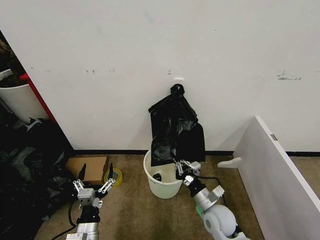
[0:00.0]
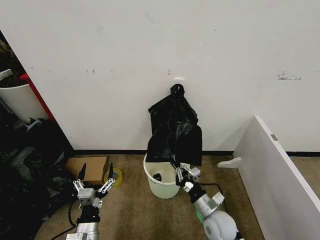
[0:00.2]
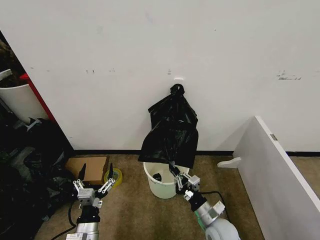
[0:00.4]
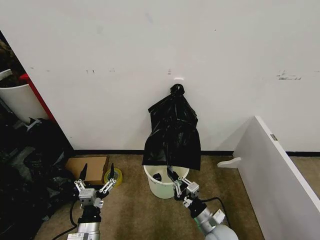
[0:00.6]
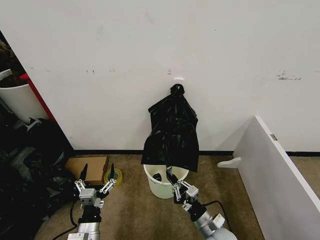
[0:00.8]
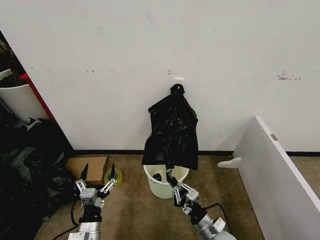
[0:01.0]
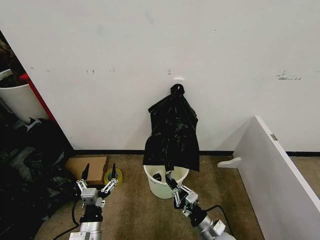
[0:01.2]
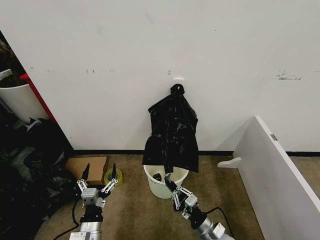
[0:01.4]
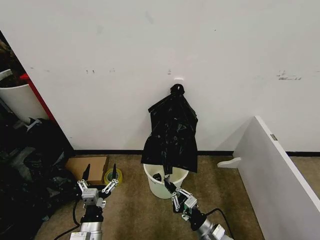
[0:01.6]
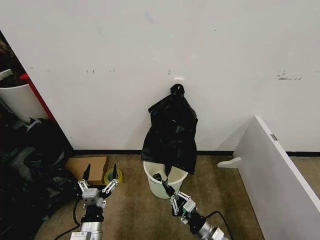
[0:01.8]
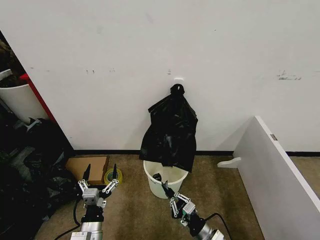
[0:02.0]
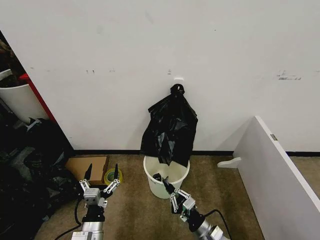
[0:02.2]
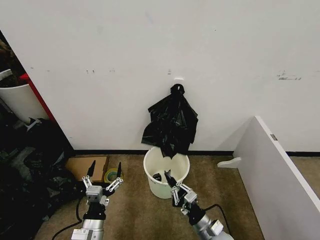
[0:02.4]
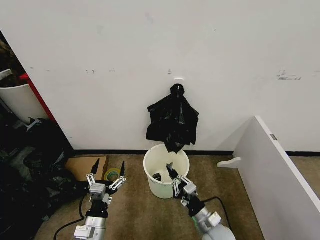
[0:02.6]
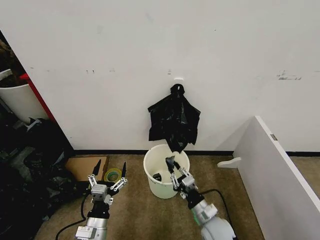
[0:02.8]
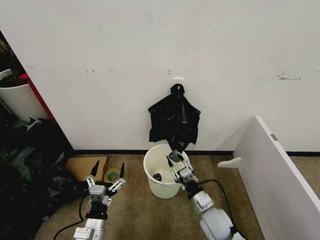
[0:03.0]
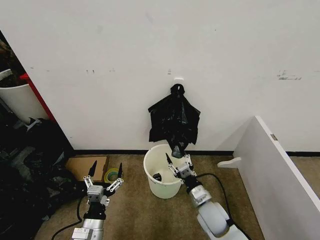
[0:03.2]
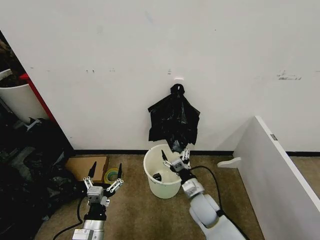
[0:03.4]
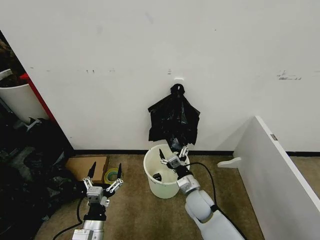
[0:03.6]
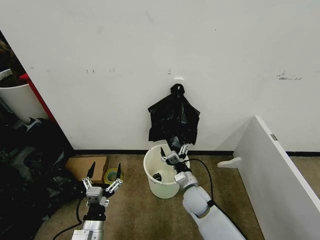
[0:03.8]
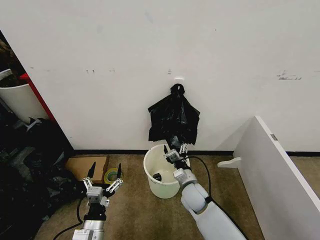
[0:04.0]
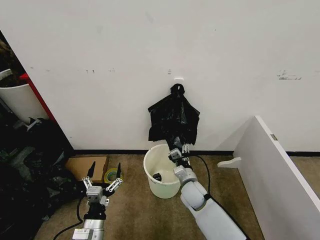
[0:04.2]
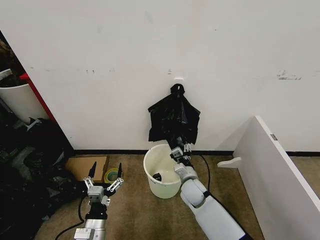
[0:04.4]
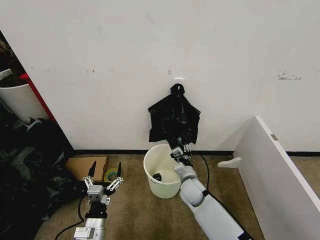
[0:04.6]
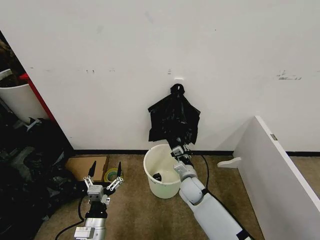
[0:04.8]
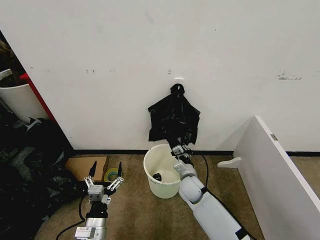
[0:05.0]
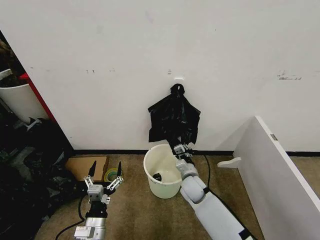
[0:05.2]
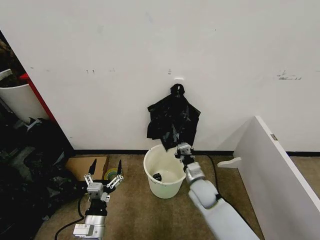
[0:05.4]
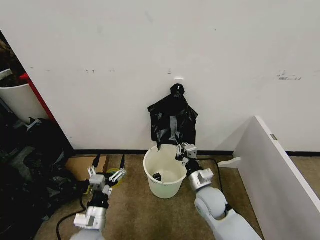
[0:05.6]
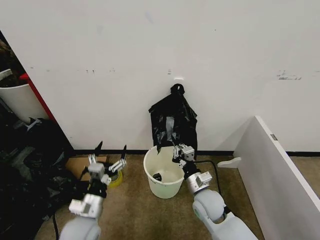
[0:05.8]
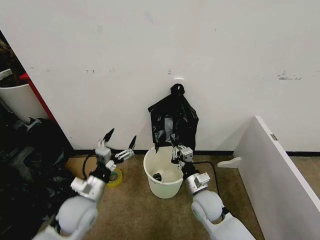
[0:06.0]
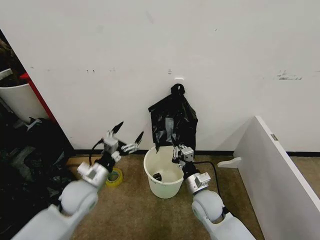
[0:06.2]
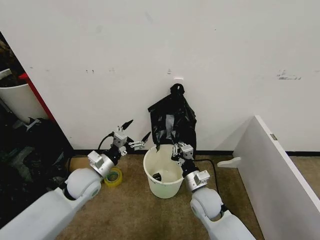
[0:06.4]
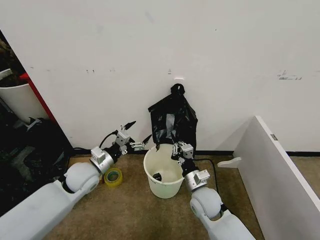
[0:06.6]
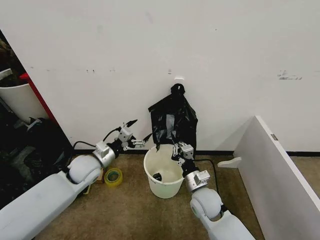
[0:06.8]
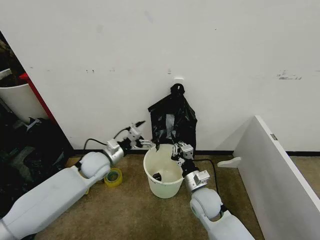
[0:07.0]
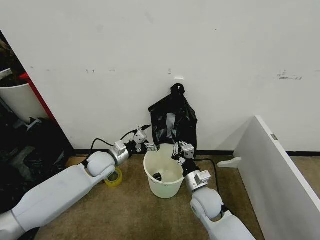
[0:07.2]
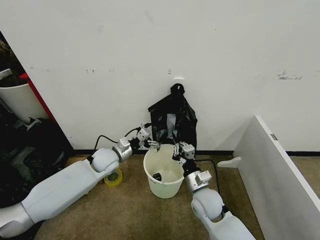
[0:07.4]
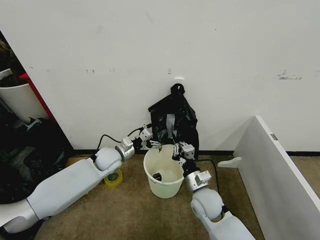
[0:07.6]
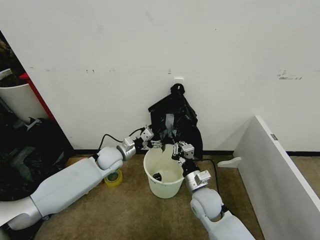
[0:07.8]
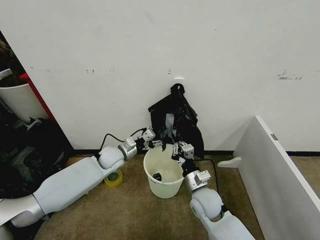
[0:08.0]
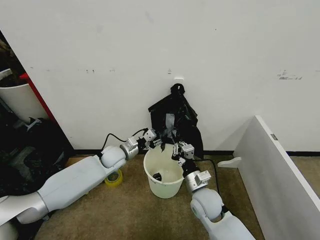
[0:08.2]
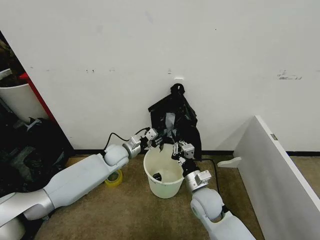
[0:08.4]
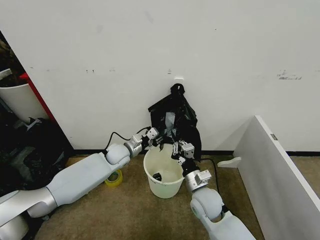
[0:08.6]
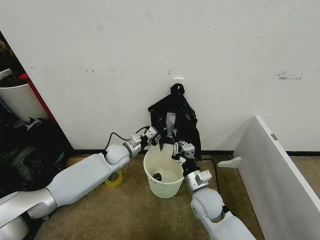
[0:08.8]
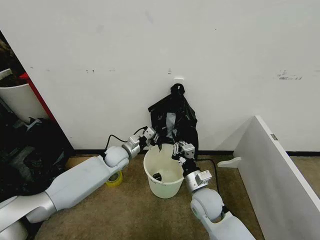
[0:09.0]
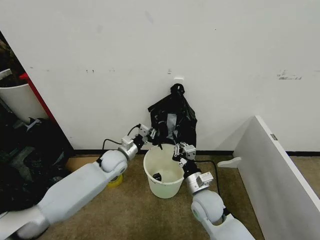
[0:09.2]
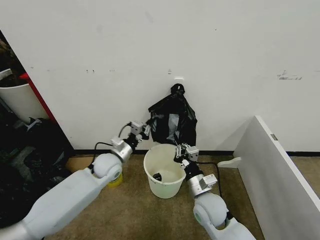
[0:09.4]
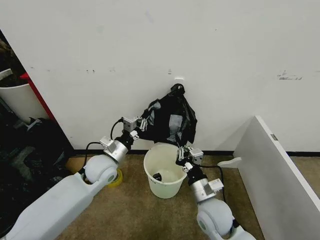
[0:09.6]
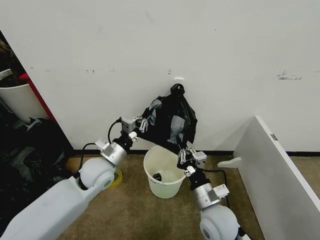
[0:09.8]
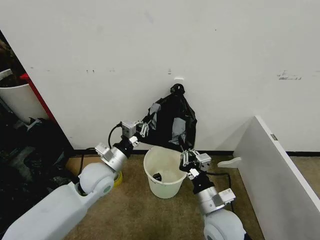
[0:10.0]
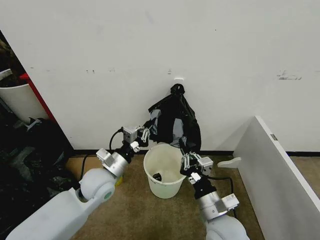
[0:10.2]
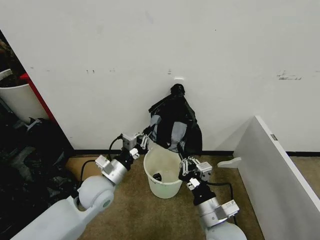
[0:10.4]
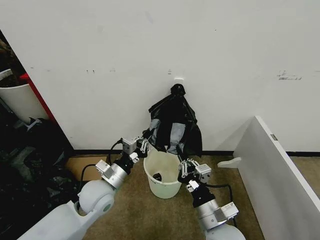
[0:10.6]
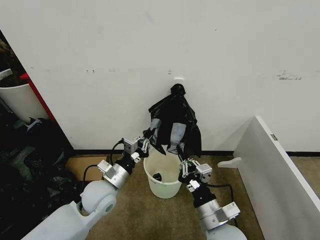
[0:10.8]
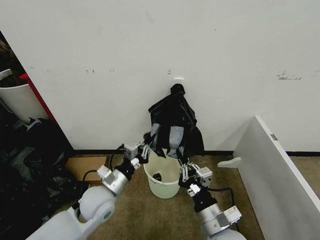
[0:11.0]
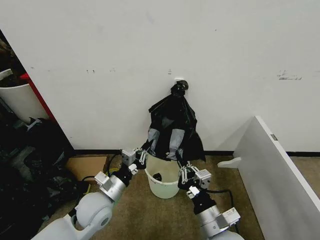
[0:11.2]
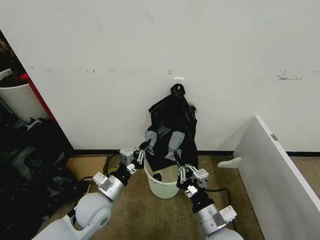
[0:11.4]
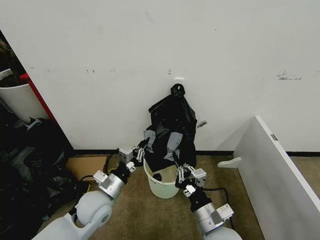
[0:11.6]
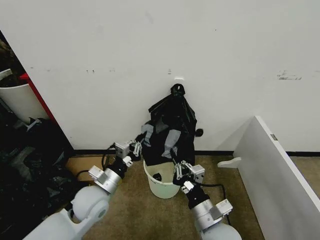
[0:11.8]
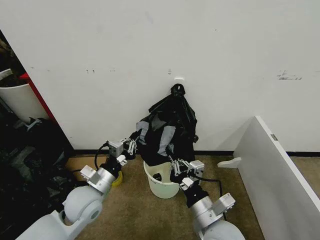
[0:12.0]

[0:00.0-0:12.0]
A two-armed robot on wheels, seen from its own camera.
Task of the whole recording: Place the garbage bag over the trash bin.
0:00.0 to 0:01.6: The right gripper travels backward and downward by some 10 cm.
0:01.6 to 0:03.0: The right gripper heads forward, covering approximately 5 cm, and opens its fingers.
0:03.0 to 0:04.4: The right gripper moves forward and to the left, roughly 10 cm, and opens, then closes again.
0:04.4 to 0:06.0: The right gripper goes some 5 cm backward, and closes its fingers. The left gripper shifts roughly 15 cm forward and upward.
0:06.0 to 0:07.6: The left gripper travels forward by roughly 20 cm.
0:07.6 to 0:09.0: The left gripper closes up.
0:09.0 to 0:10.4: Both grippers move backward and upward, approximately 15 cm.
0:10.4 to 0:12.0: The grippers make only small movements.

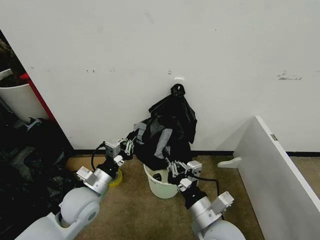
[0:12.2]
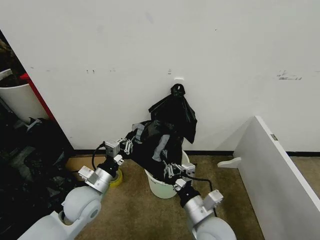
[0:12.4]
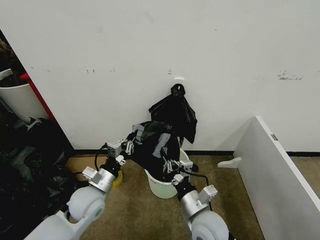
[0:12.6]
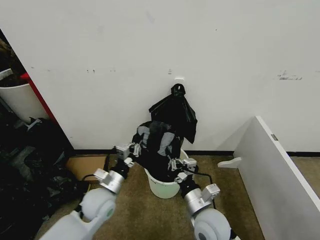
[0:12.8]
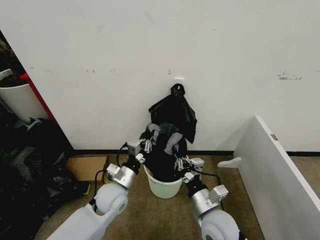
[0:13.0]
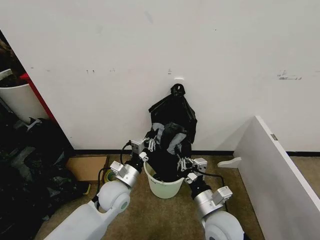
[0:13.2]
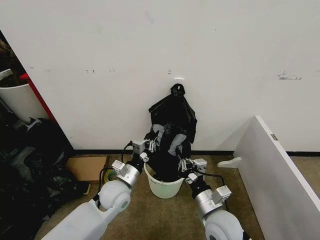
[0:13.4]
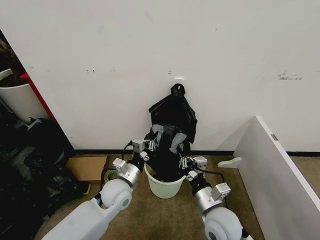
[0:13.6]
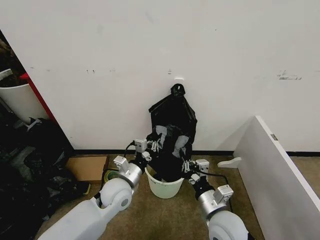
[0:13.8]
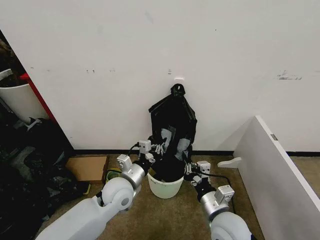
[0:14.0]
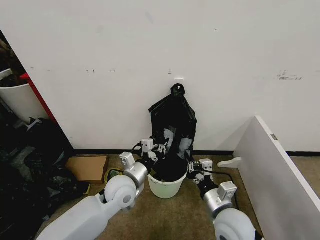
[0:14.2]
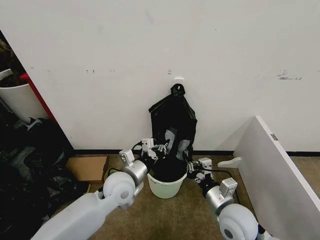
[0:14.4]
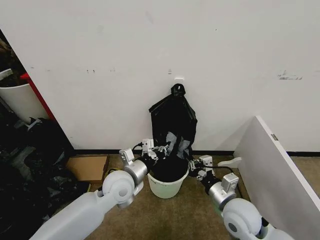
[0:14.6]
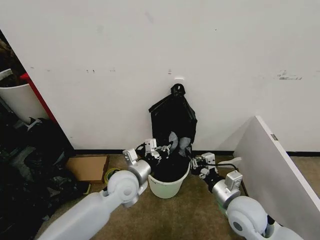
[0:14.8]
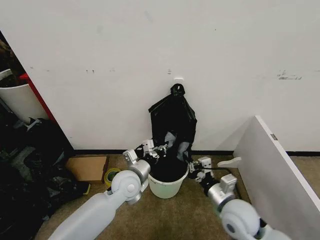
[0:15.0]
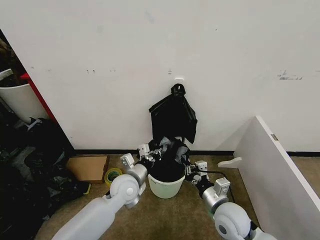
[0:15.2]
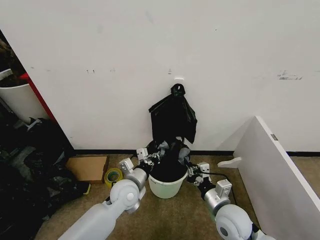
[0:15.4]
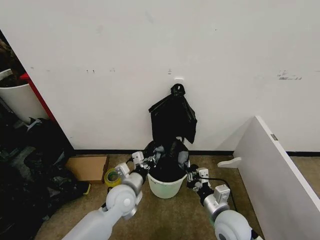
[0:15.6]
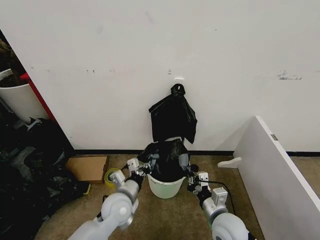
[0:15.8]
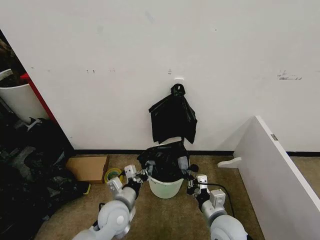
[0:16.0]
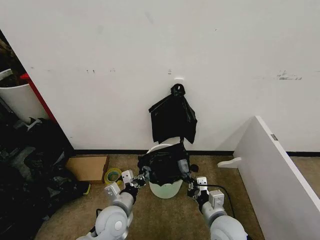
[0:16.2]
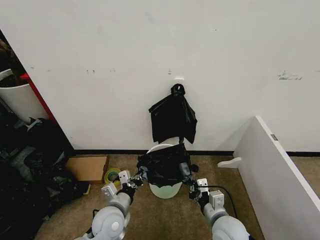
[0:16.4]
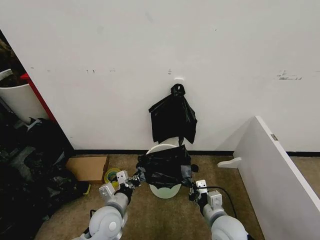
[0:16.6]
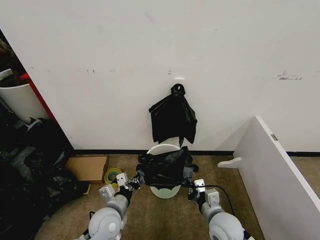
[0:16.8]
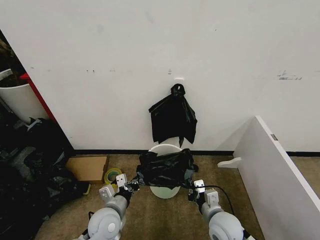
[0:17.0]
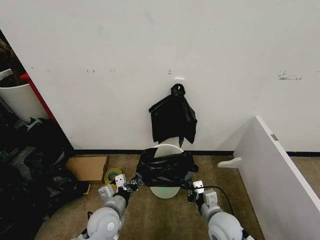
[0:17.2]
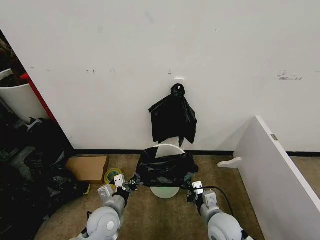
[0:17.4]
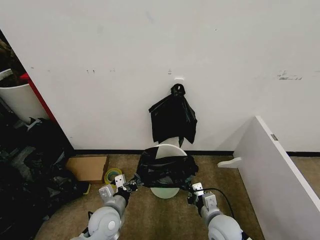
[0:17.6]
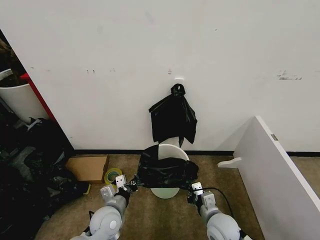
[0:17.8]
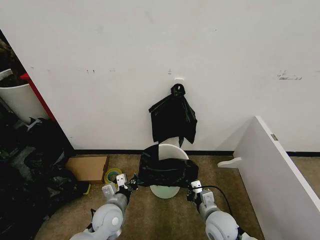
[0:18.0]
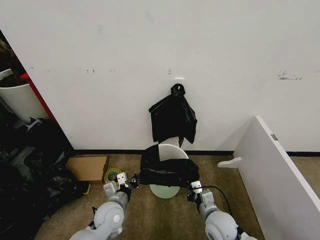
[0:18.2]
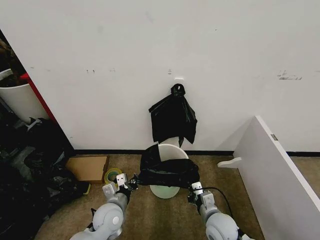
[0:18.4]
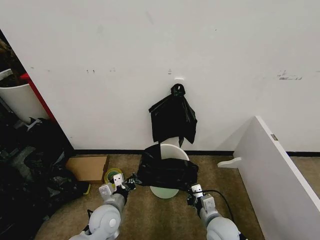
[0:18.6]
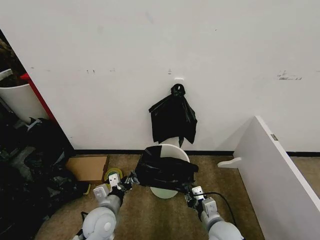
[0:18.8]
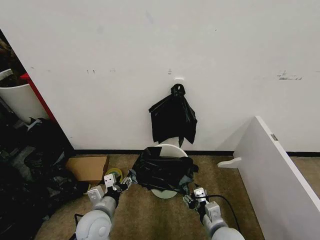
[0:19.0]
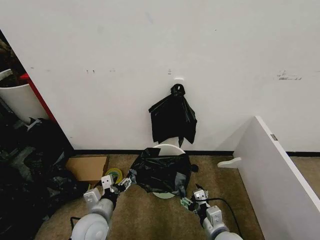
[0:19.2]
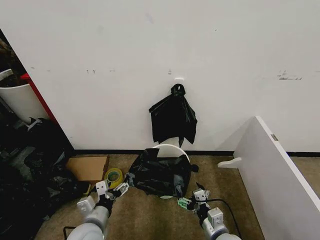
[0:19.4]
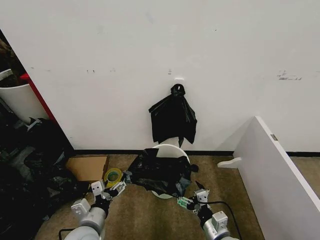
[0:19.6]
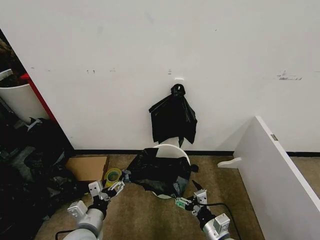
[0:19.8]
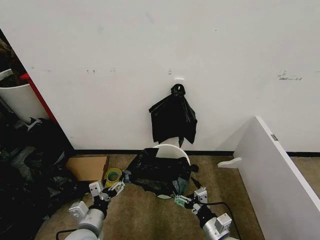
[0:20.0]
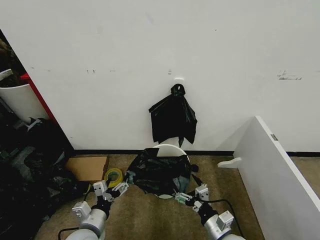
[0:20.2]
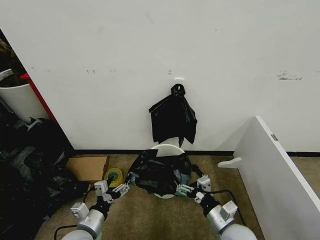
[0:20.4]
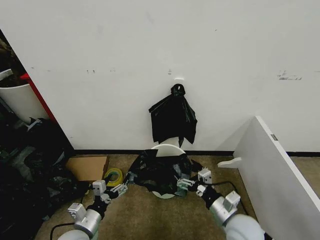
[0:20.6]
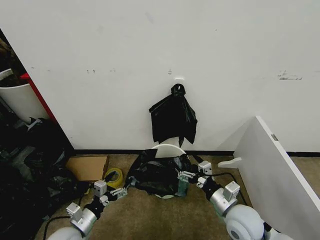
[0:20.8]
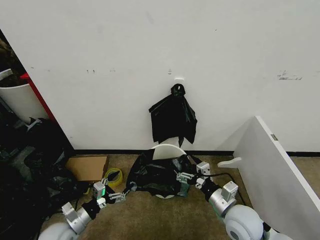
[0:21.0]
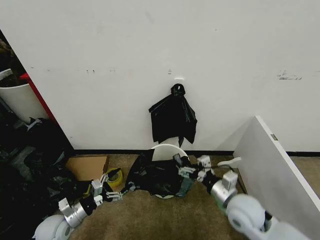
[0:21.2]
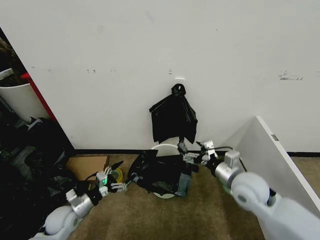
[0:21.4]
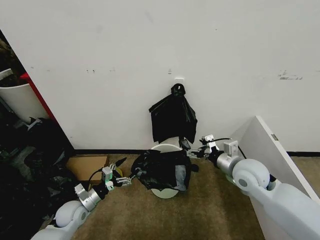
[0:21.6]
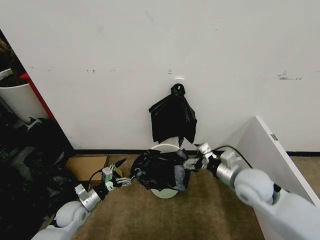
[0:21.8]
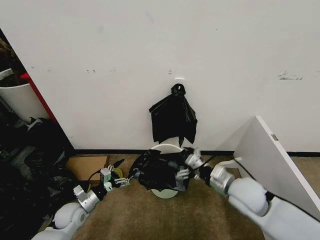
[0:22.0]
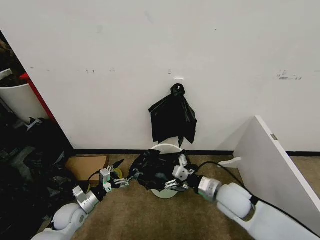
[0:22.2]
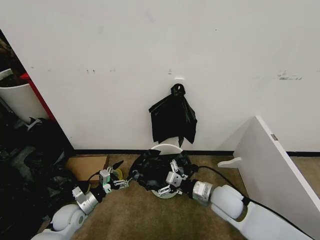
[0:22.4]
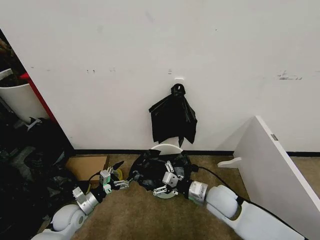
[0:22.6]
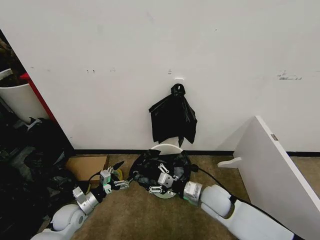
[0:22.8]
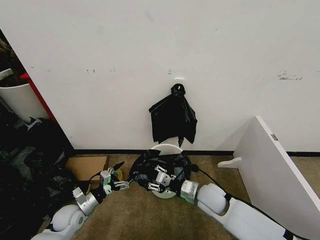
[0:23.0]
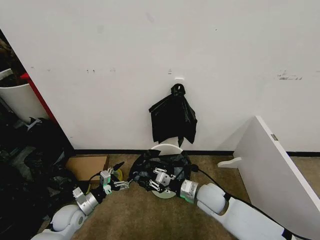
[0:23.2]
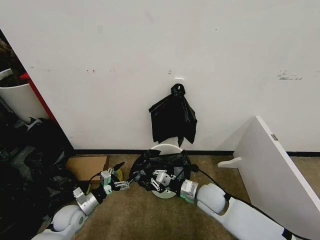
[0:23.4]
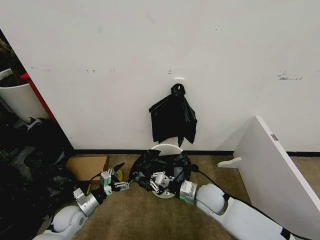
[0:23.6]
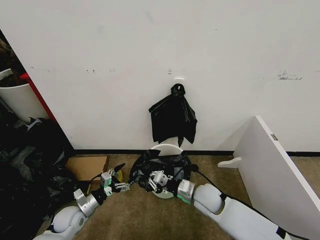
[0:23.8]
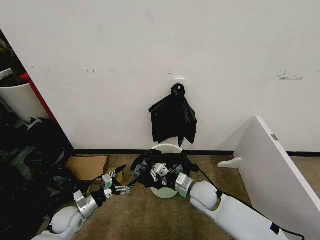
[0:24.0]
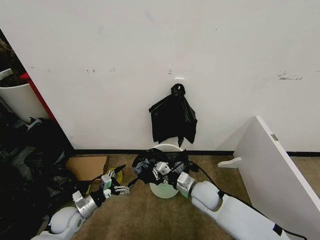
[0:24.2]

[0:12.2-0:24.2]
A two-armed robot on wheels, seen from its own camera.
Task of the whole recording: Place the garbage bag over the trash bin.
0:12.2 to 0:13.8: The left gripper travels to the right by some 10 cm; the right gripper ends up about 5 cm from where it was.
0:13.8 to 0:15.2: The right gripper ends up approximately 5 cm from where it was.
0:15.2 to 0:16.6: The left gripper moves backward, approximately 10 cm.
0:16.6 to 0:18.2: The right gripper shifts by roughly 5 cm.
0:18.2 to 0:19.8: The left gripper travels backward, upward and to the left by about 10 cm, and opens, while the right gripper shifts about 10 cm backward, and opens up.
0:19.8 to 0:21.2: The right gripper is displaced upward and forward by about 15 cm; the left gripper heads to the left, downward and forward, covering some 15 cm.
0:21.2 to 0:22.6: The right gripper changes place by approximately 5 cm, while the left gripper shifts by roughly 5 cm.
0:22.6 to 0:24.2: The right gripper ends up approximately 5 cm from where it was, and closes up.
